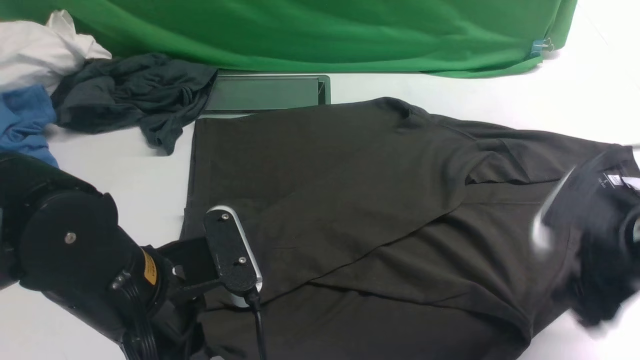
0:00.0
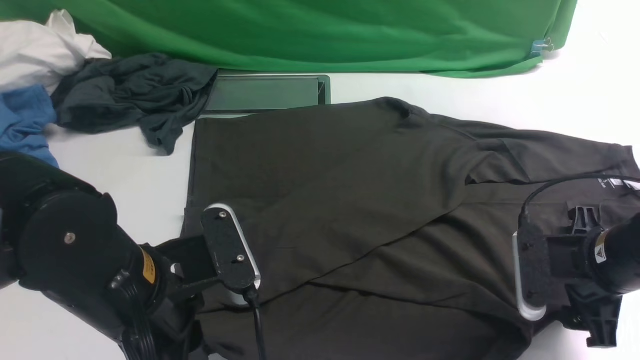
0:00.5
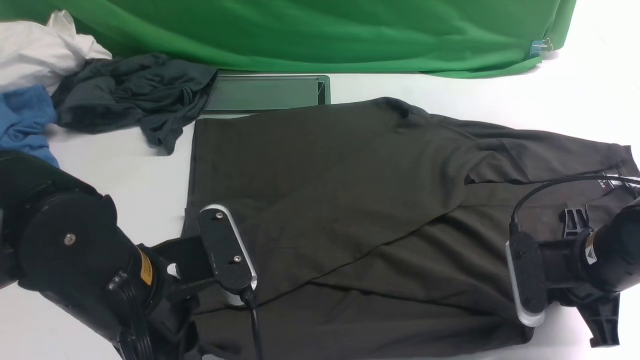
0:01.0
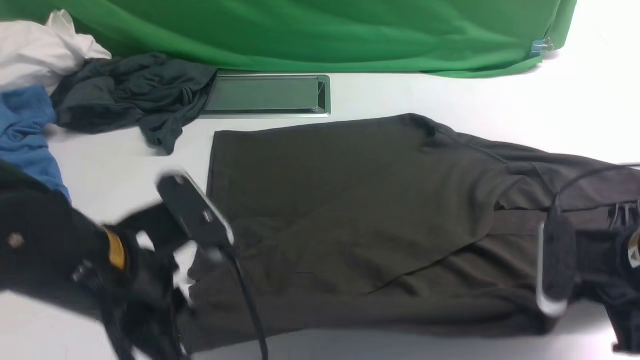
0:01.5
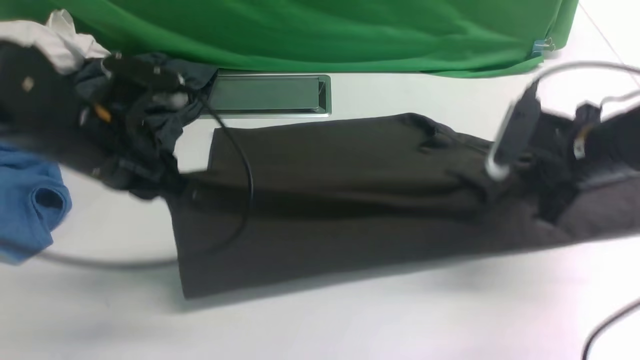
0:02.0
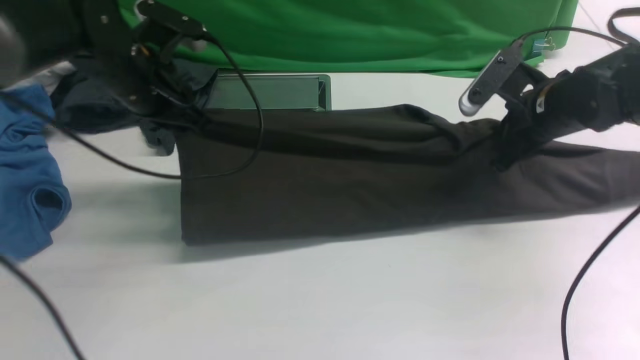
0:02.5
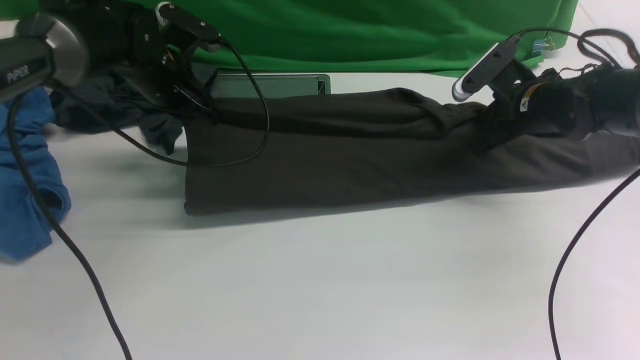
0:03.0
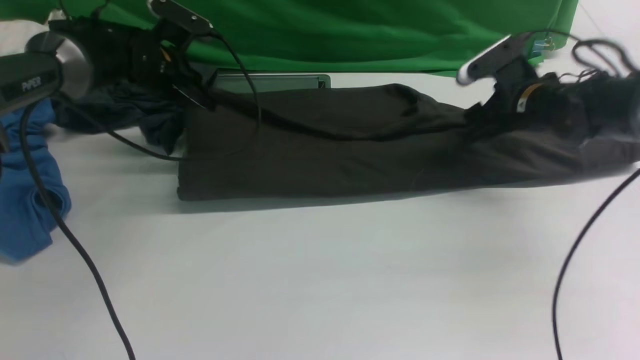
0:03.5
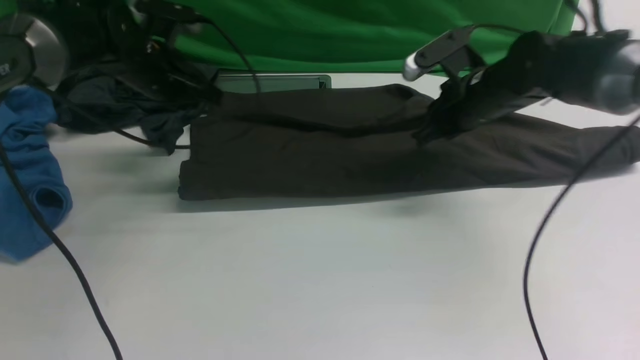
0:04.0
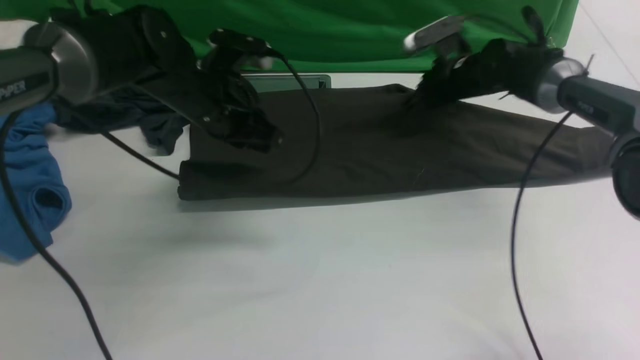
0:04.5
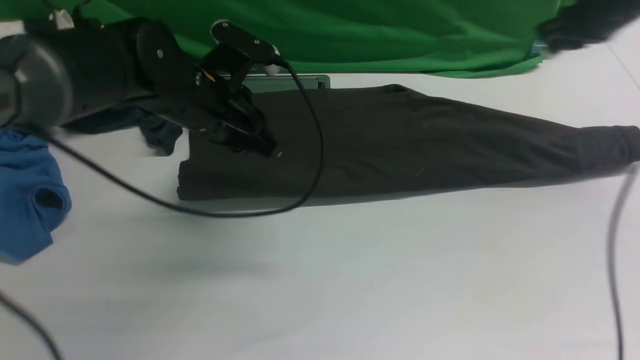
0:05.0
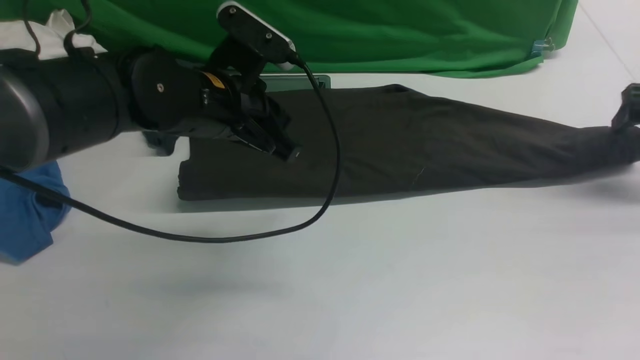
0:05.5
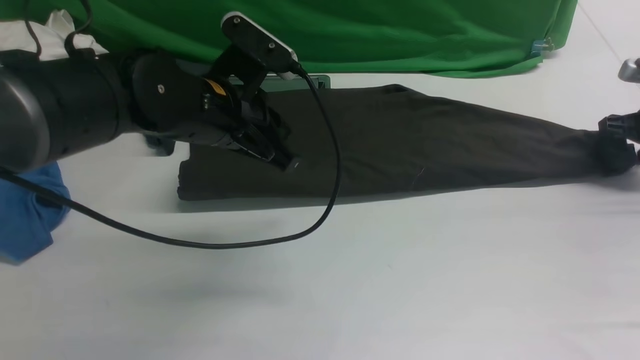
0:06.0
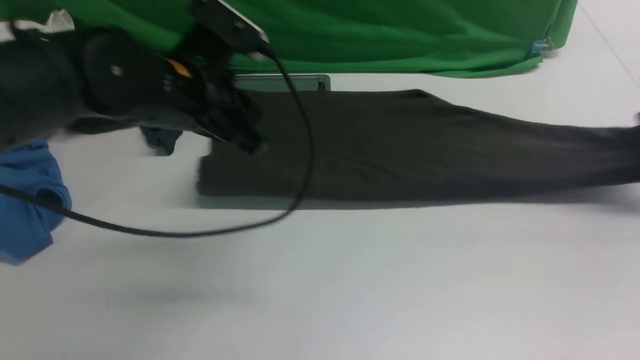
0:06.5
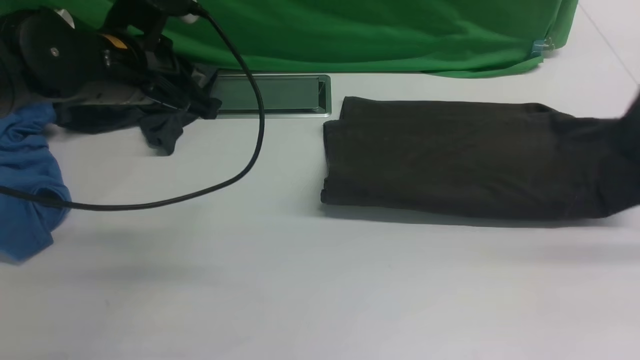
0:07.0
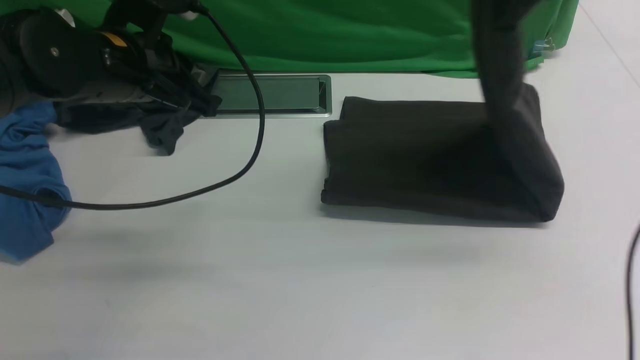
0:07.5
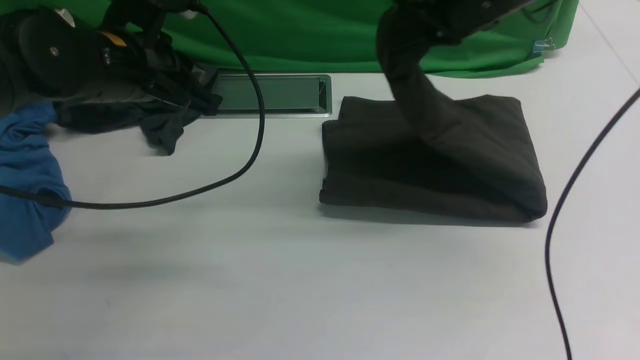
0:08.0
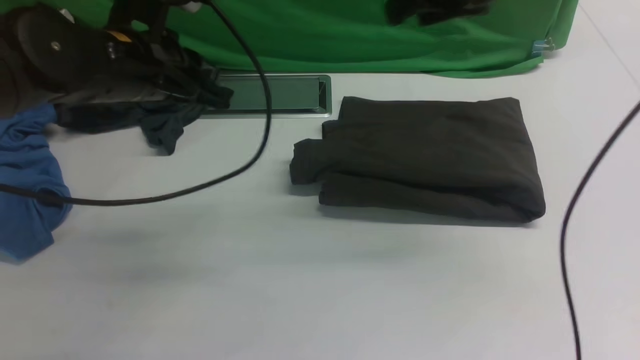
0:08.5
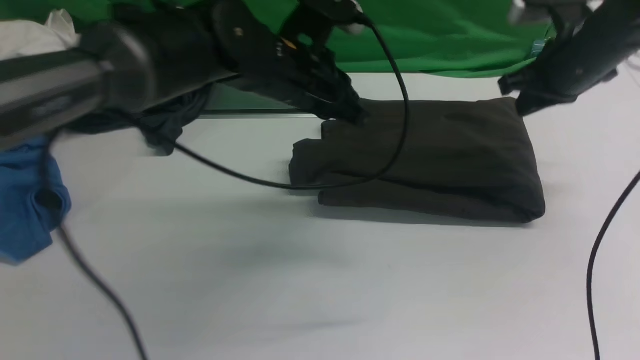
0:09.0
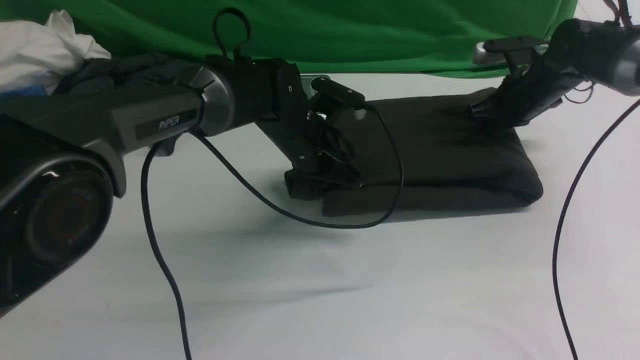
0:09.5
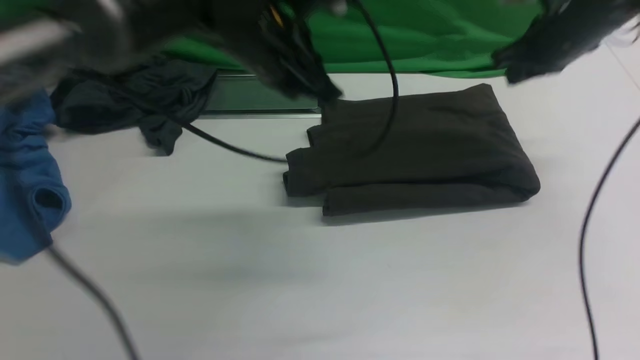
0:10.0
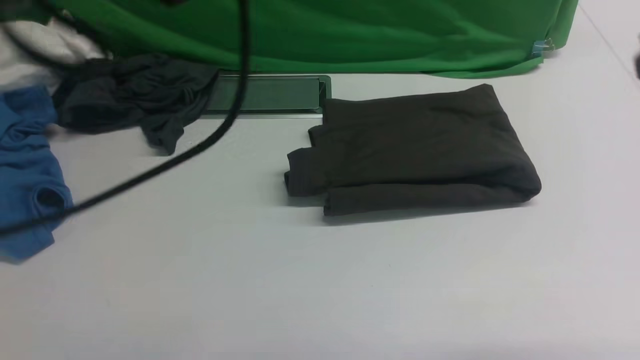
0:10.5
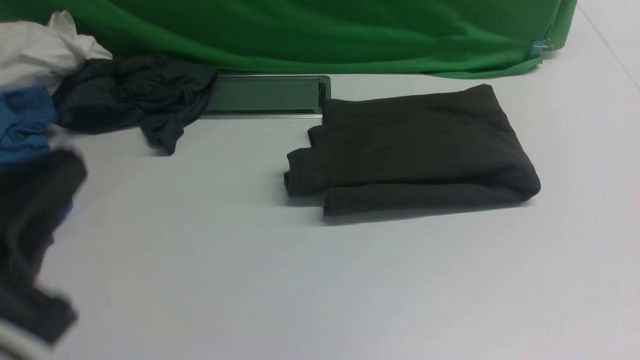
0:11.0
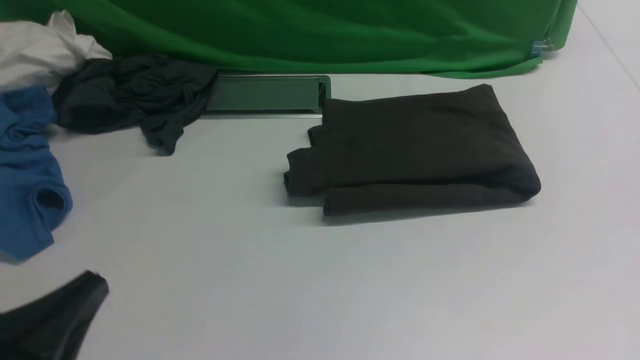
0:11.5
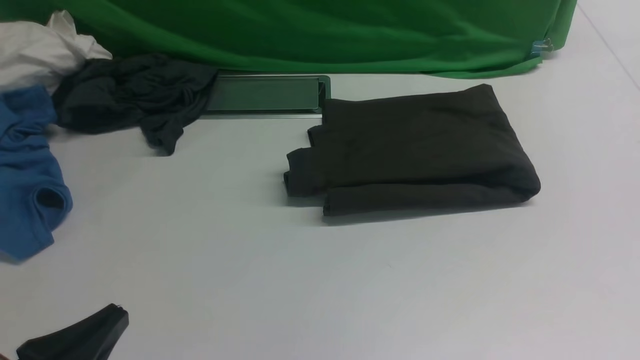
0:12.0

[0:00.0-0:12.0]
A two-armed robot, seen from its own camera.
Step, 0:02.0 to 0:04.5: use both arms to drag the lower edge of the fabric forward and fold it over the upper edge.
Step, 0:05.0 to 0:06.5: use the right arm to clamp the right edge of the fabric.
Step, 0:07.0 to 0:08.0: use the right arm to drag the right edge of the fabric to the left and folds it over the left edge.
0:00.0 to 0:02.0: The right gripper is displaced forward by some 10 cm, and closes up. Meanwhile the left gripper shifts about 15 cm forward and to the left.
0:02.0 to 0:04.0: The right gripper heads forward and to the left, covering approximately 15 cm, and opens and closes again. Meanwhile the left gripper heads forward, covering about 15 cm.
0:04.0 to 0:06.0: The left gripper goes some 15 cm backward and to the right. Meanwhile the right gripper is displaced to the right by approximately 25 cm, and opens its fingers.
0:06.0 to 0:08.0: The left gripper is displaced to the left by approximately 10 cm, while the right gripper is displaced to the left and upward by roughly 35 cm, and closes its fingers.
0:08.0 to 0:10.0: Both grippers move to the right, roughly 10 cm. The right gripper moves roughly 15 cm downward and comes back, and closes up. Meanwhile the left gripper moves about 15 cm downward and comes back.
0:10.0 to 0:12.0: The left gripper heads backward, downward and to the left, covering some 35 cm, while the right gripper heads backward, covering roughly 40 cm.

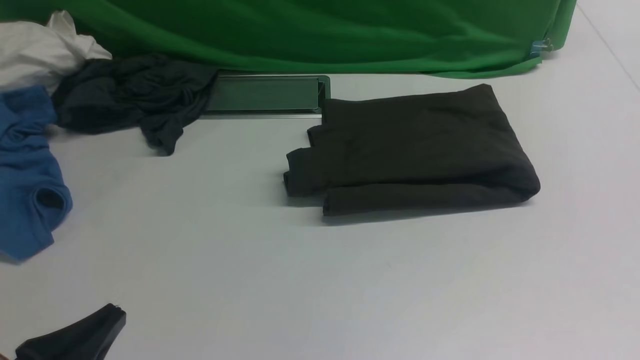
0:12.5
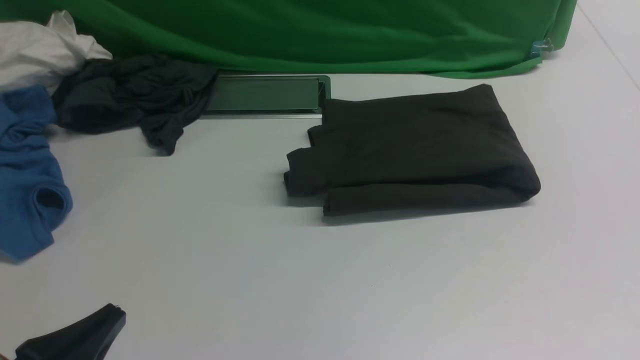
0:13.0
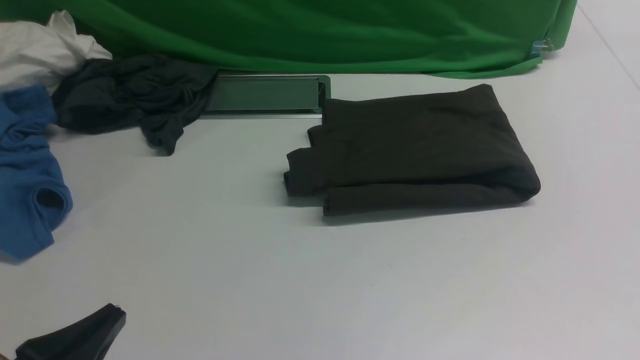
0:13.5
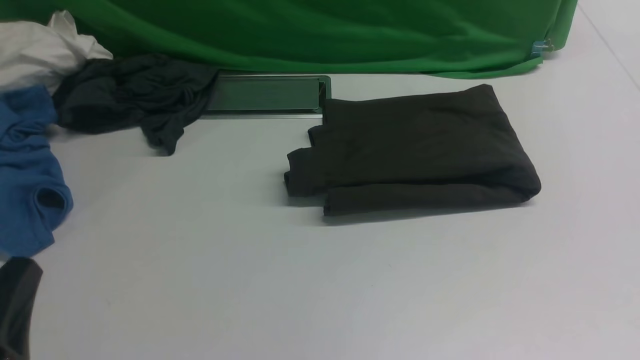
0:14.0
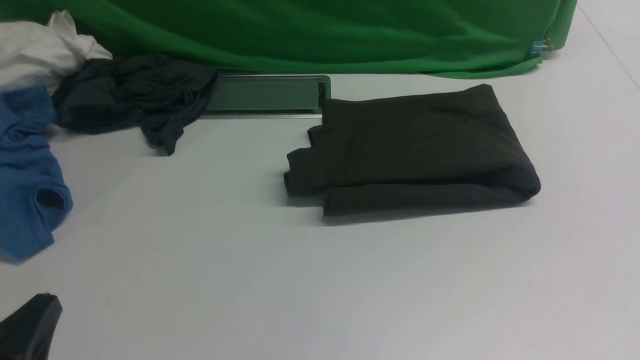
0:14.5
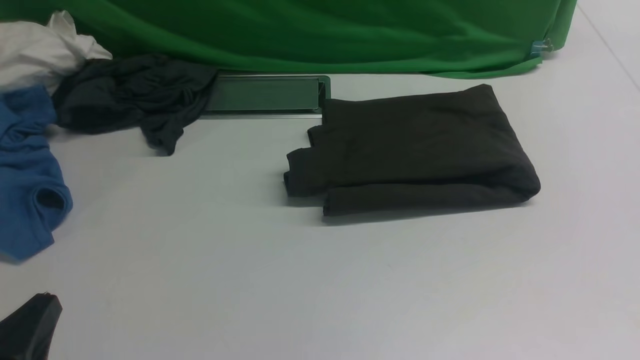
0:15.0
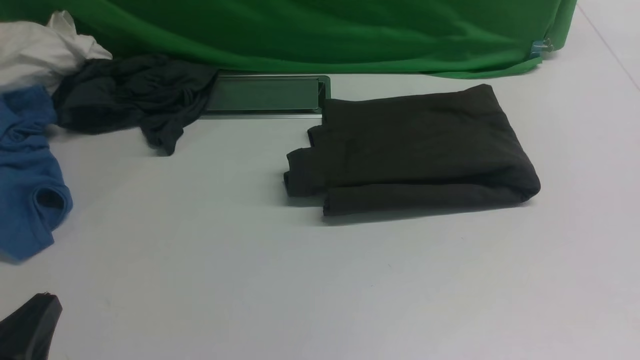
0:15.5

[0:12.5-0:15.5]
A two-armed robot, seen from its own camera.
0:12.5 to 0:14.0: The grippers stay close to where they were, moving slightly.
0:14.0 to 0:15.5: There are only small adjustments of the grippers.
